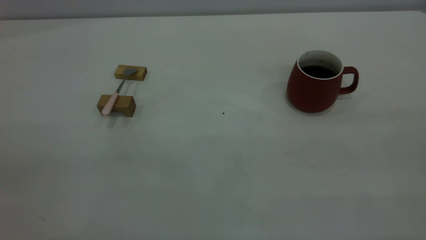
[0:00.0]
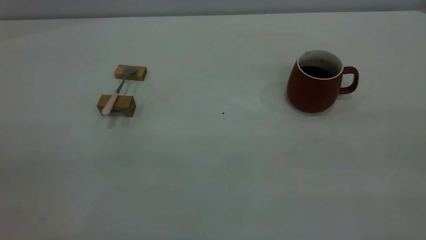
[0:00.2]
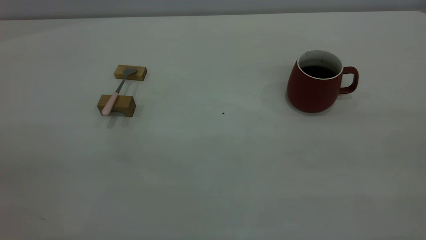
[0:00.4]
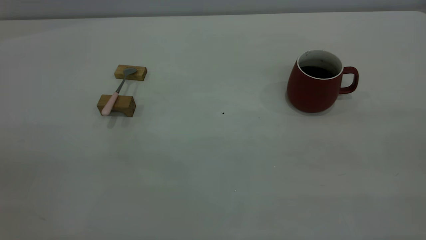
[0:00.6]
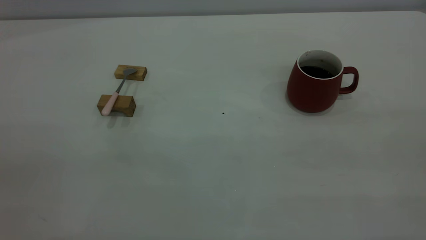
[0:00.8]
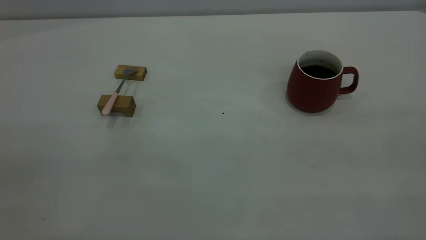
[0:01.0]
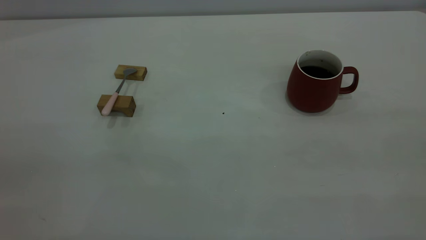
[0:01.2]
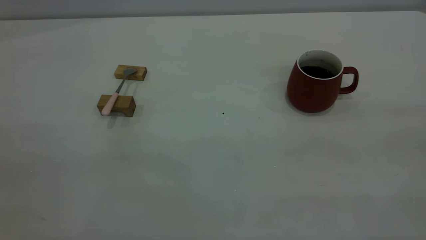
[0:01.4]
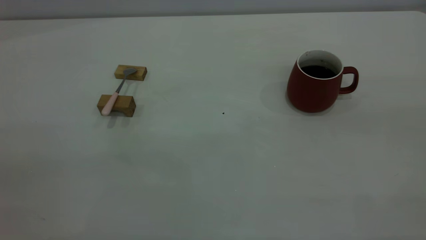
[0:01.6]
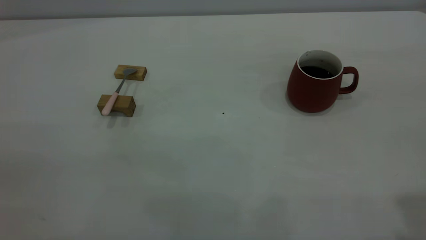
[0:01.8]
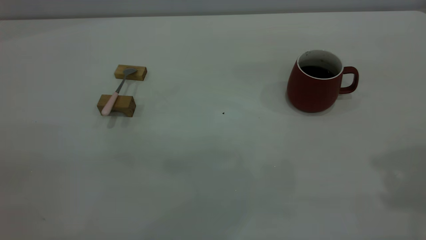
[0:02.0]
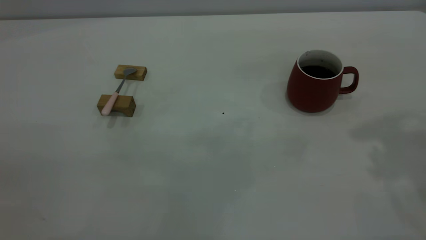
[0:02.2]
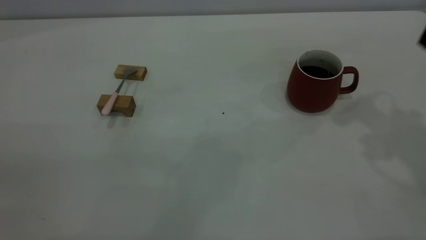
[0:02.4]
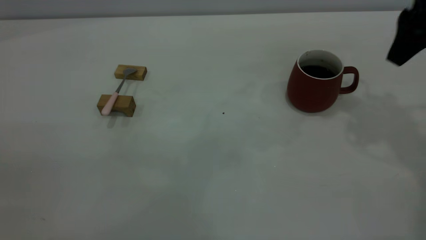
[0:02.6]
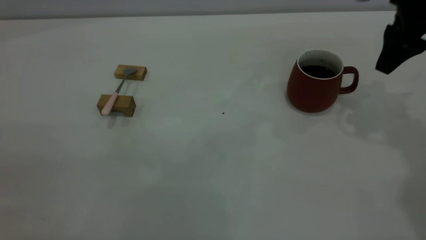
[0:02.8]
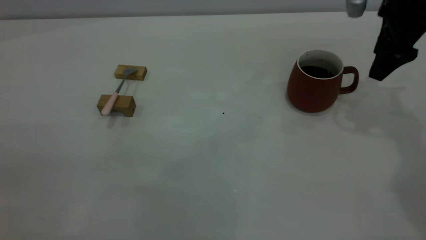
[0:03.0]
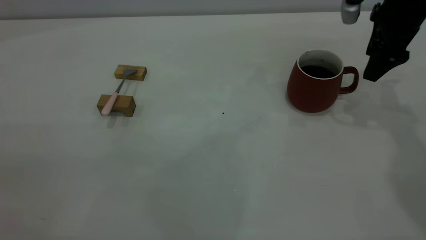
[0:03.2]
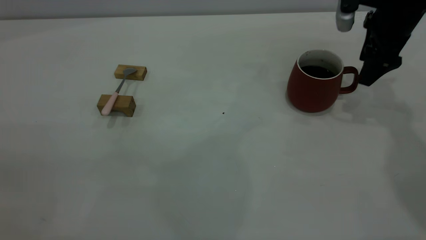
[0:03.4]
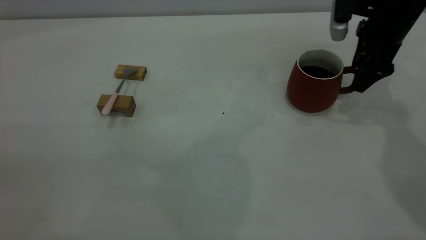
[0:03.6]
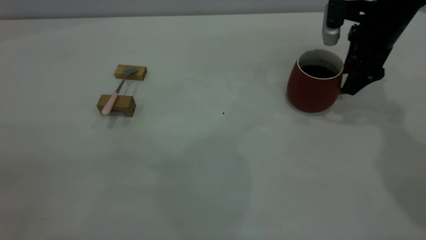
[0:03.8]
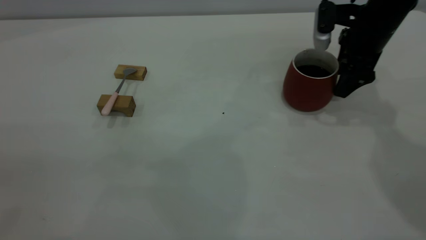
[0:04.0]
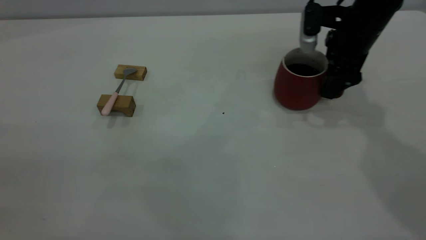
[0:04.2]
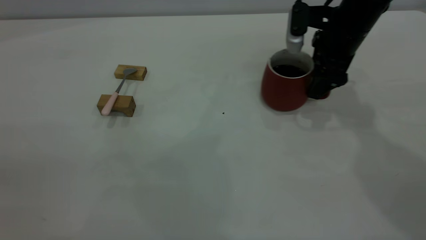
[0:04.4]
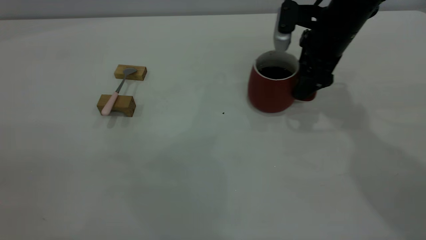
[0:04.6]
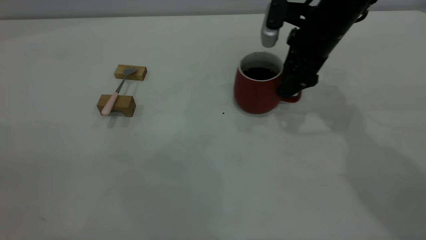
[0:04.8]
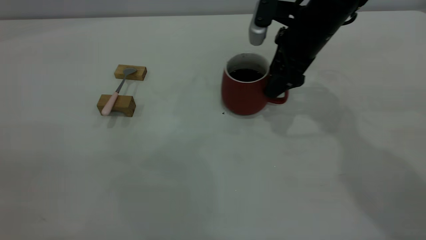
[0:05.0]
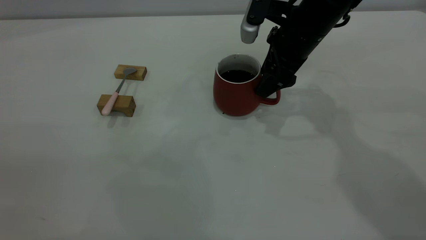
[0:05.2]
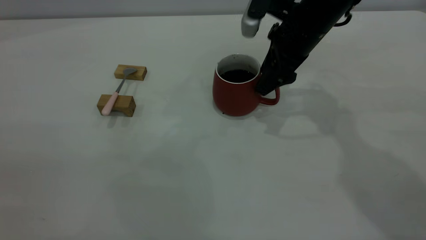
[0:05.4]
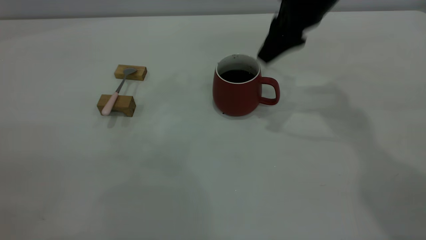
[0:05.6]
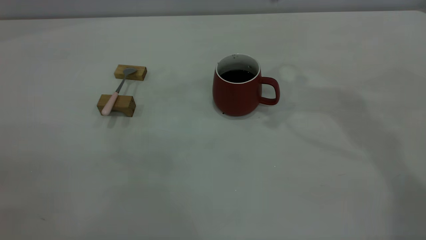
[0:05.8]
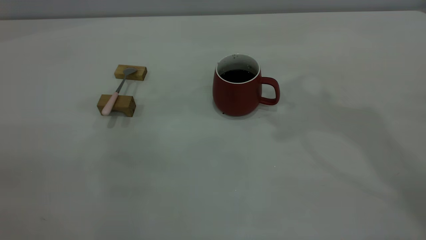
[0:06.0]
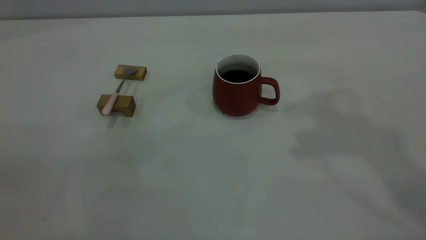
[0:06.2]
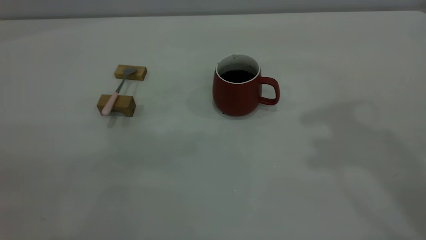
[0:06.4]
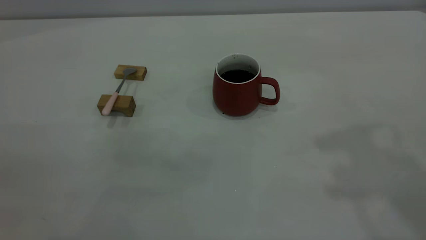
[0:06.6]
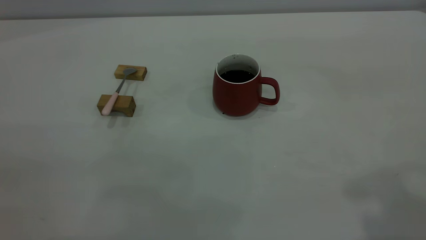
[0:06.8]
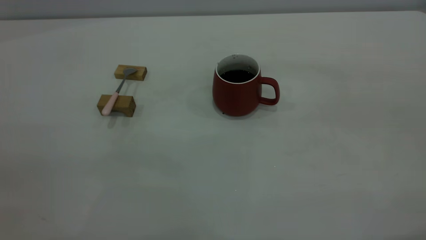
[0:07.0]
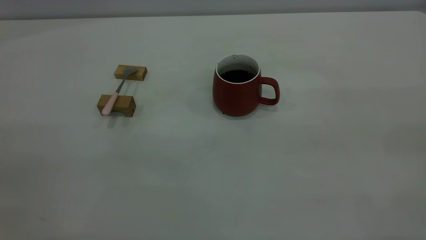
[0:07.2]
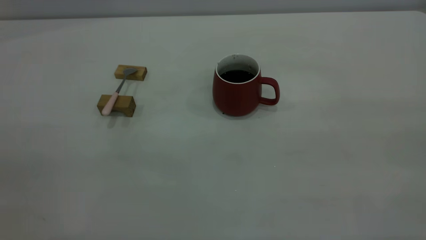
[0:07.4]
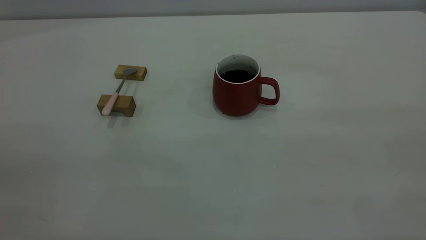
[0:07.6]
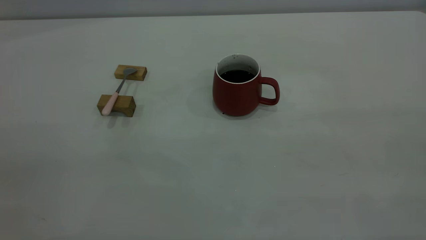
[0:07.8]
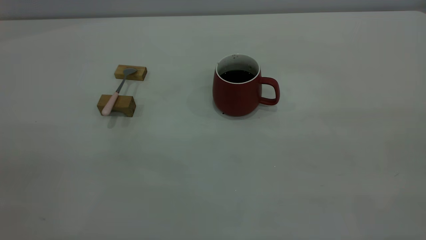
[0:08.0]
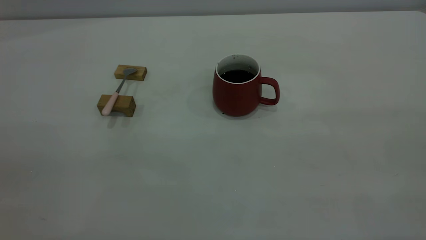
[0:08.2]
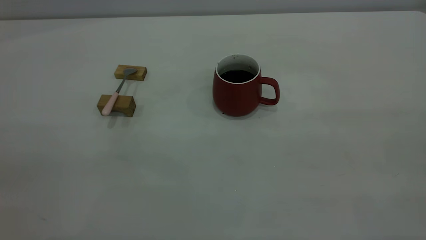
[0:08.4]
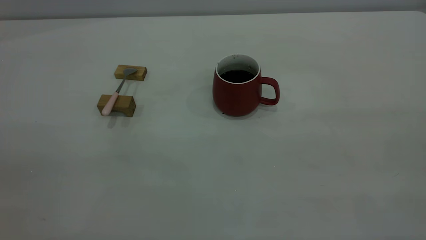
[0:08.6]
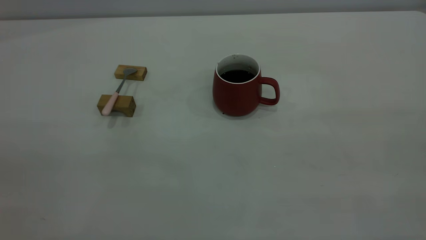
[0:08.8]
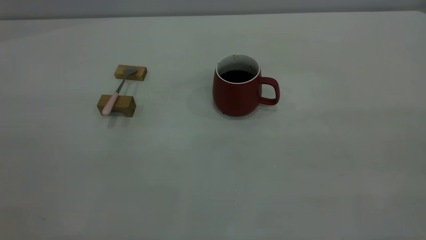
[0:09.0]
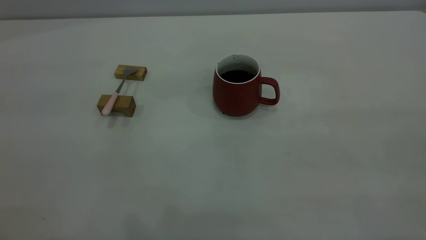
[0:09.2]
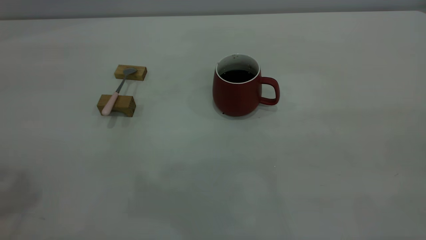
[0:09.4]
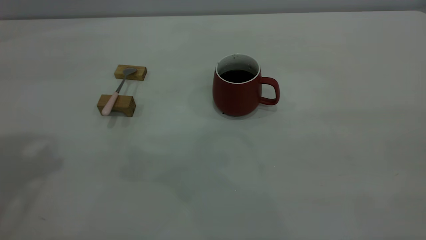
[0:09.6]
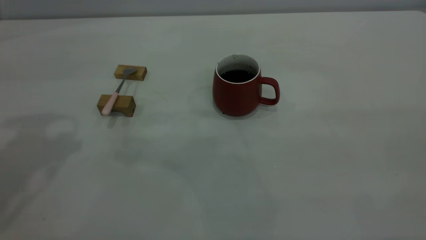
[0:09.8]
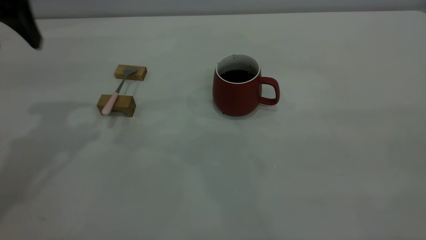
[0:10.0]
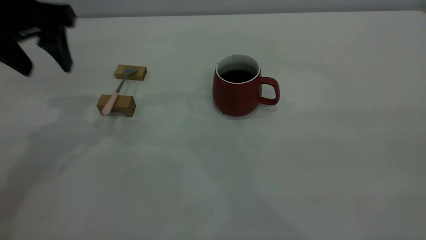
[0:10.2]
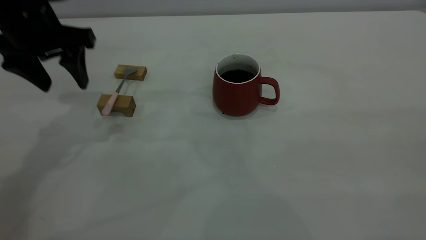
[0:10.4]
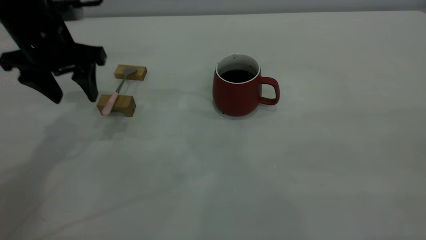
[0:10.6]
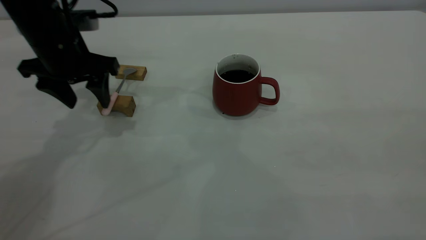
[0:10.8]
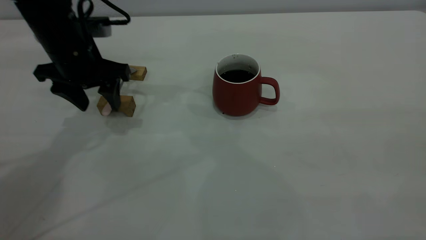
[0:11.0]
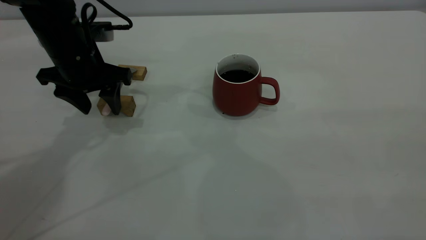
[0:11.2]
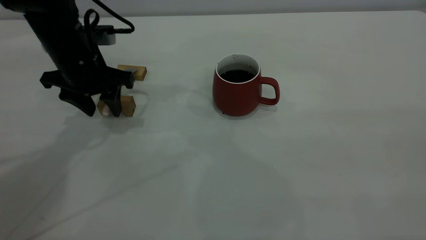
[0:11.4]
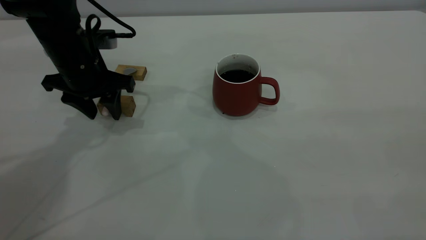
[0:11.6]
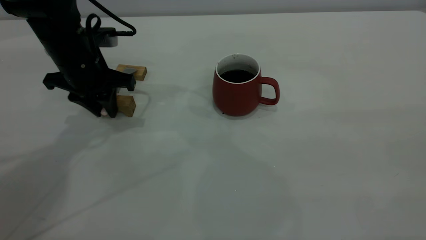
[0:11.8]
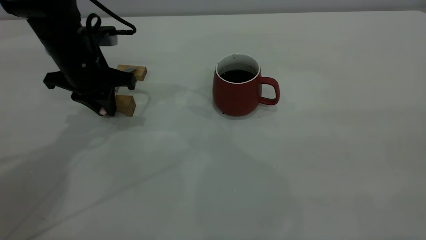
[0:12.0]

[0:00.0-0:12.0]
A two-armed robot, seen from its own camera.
Step, 0:00.0 to 0:05.4: Move the cup with coffee to the center of view.
0:01.6 to 0:03.0: The right gripper travels forward and downward by about 40 cm, and opens up.
0:03.0 to 0:04.4: The right gripper moves to the left and downward, some 10 cm, and closes up.
0:04.4 to 0:06.0: The right gripper heads upward, covering approximately 30 cm, and closes up.
0:09.0 to 0:10.4: The left gripper is displaced forward and downward by some 40 cm, and opens.
0:10.4 to 0:12.0: The left gripper shifts roughly 10 cm downward, and closes its fingers.

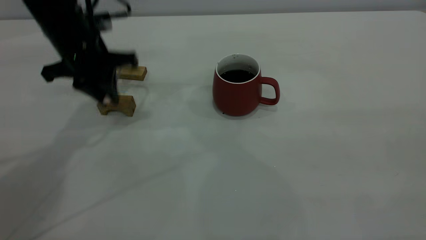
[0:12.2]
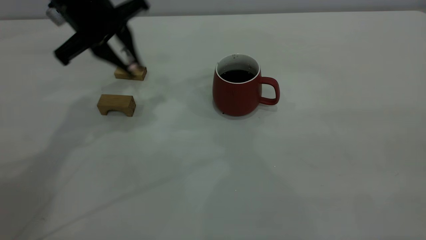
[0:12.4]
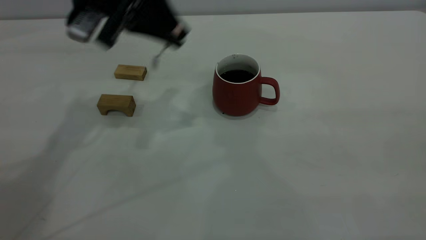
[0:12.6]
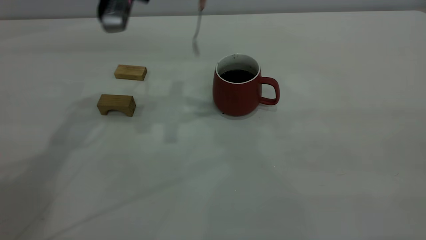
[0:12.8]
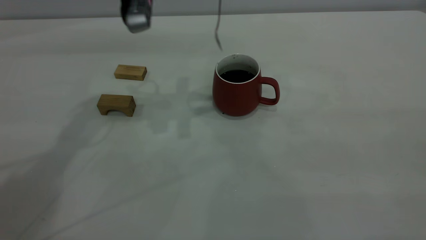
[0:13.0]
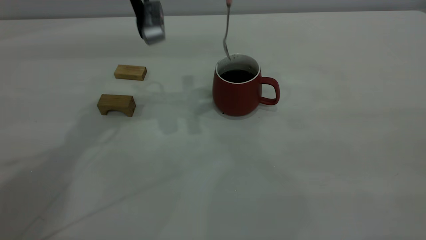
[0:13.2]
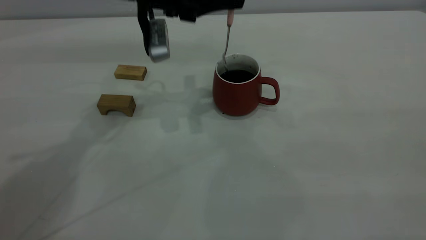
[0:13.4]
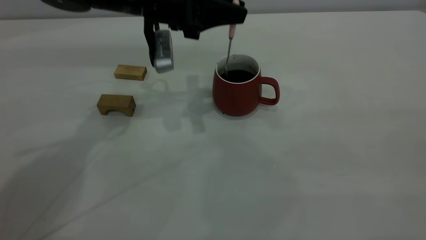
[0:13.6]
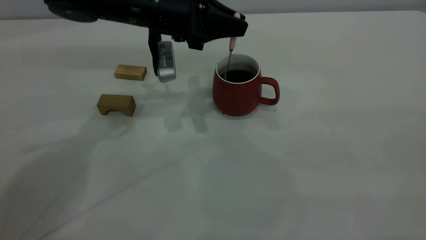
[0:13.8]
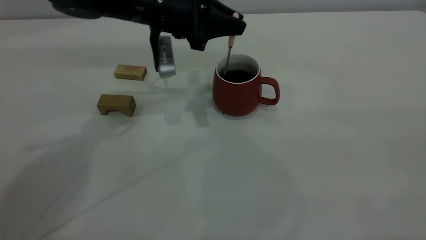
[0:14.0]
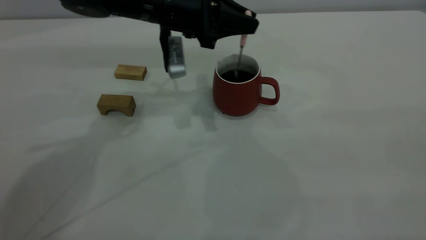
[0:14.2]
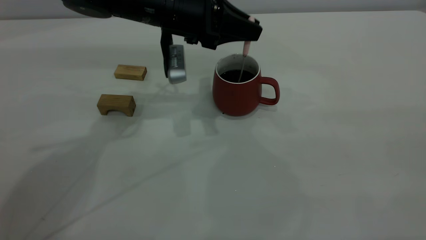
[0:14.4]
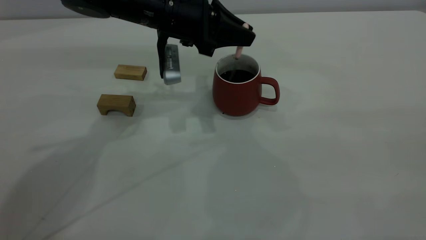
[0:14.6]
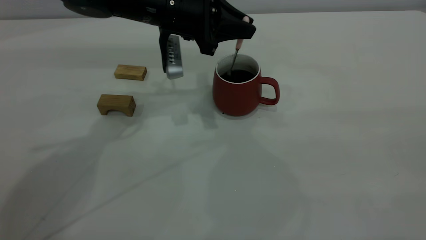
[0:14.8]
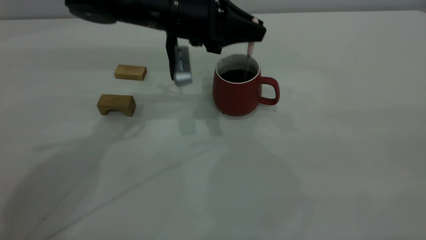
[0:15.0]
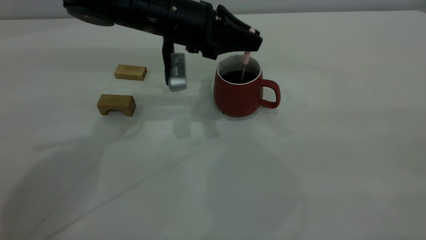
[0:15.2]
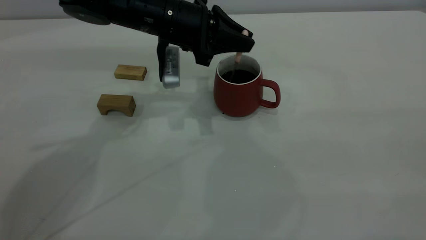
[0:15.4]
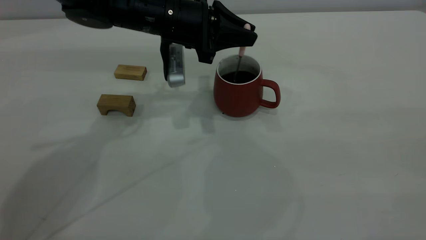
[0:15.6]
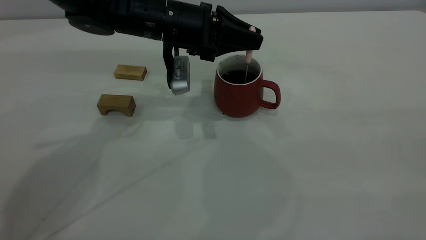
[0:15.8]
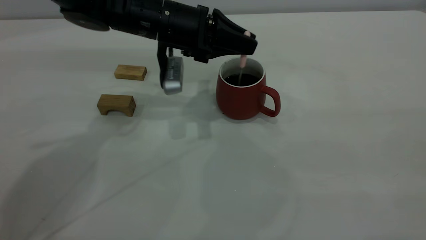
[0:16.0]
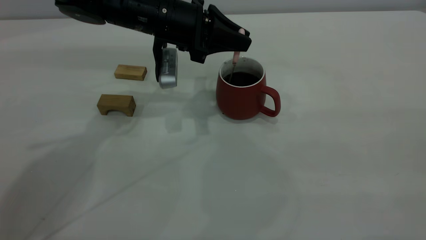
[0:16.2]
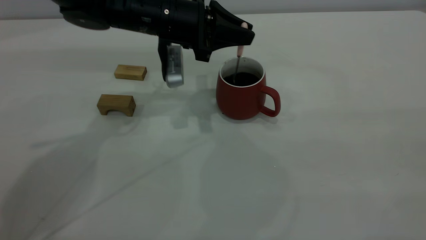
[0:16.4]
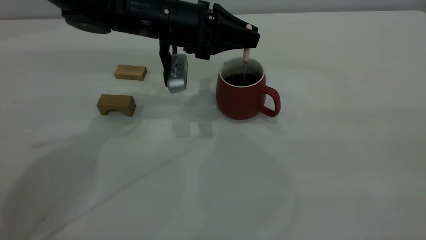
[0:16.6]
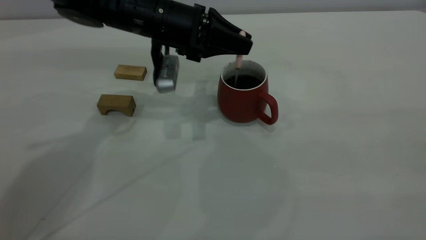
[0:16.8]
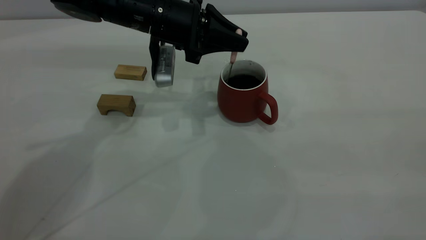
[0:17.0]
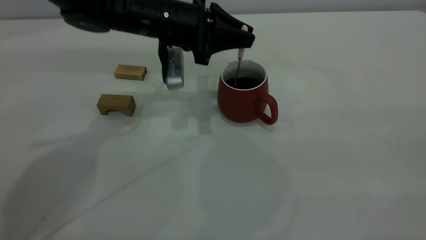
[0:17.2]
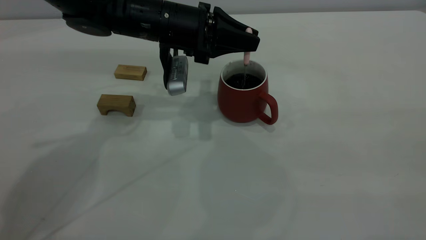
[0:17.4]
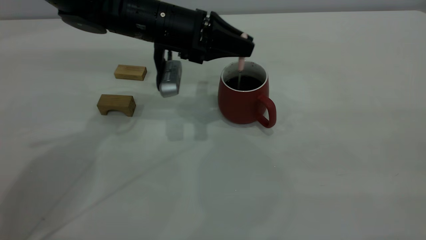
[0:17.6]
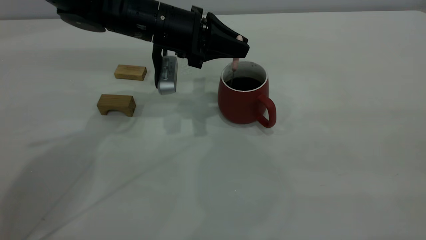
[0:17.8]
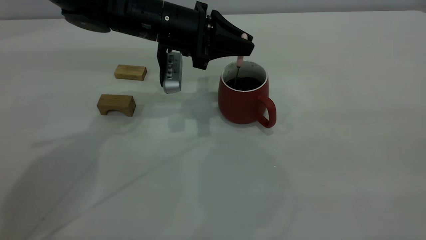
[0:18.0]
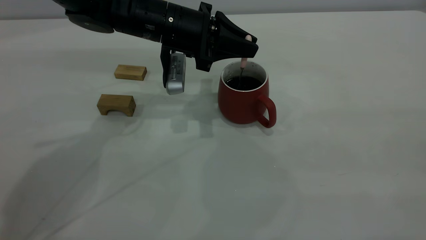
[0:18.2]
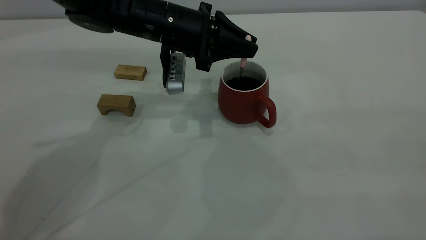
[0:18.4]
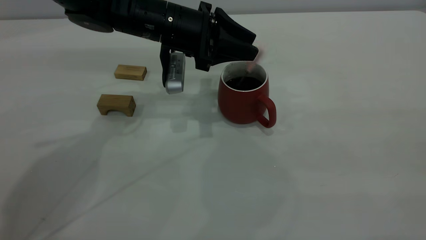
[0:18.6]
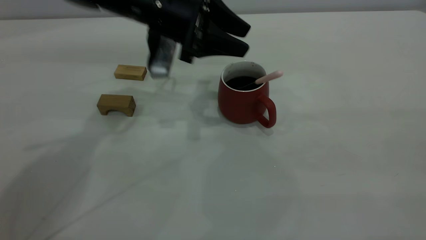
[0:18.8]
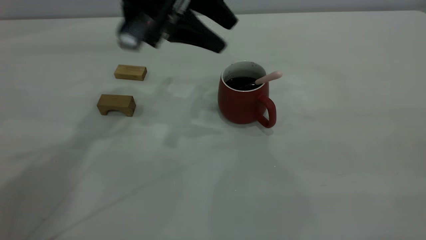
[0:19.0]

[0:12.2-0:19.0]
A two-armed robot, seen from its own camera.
Step, 0:12.4 to 0:18.8: Stir the coffee in the cup.
0:12.2 to 0:13.6: The left gripper heads to the right, covering roughly 10 cm.
0:13.6 to 0:17.6: The grippers move only a little.
0:17.6 to 0:19.0: The left gripper shifts approximately 10 cm upward, and opens its fingers.
